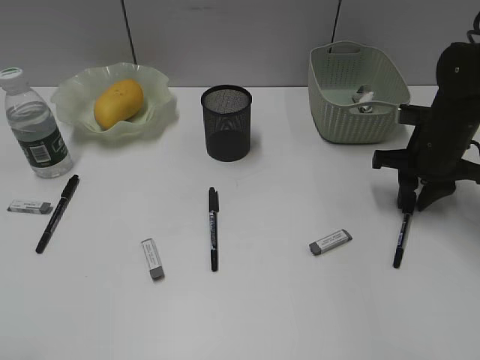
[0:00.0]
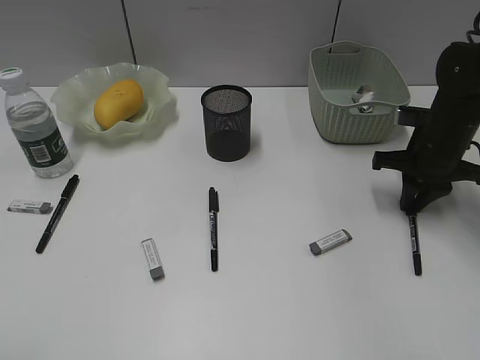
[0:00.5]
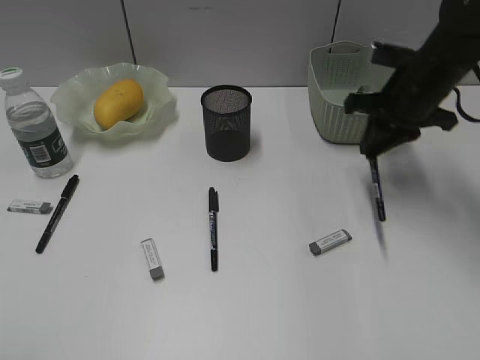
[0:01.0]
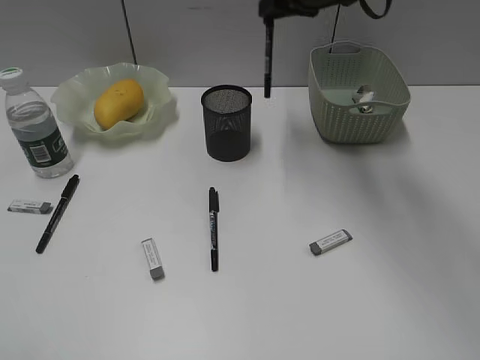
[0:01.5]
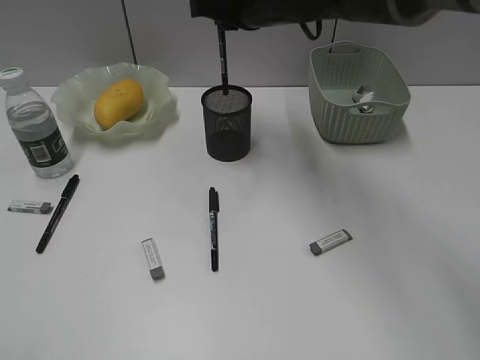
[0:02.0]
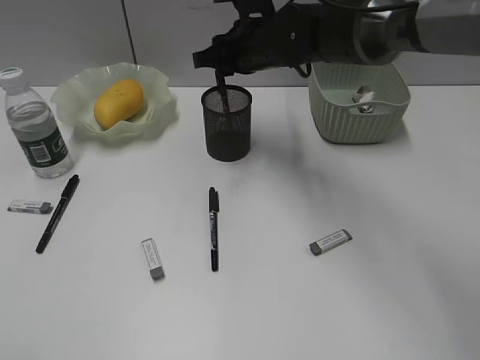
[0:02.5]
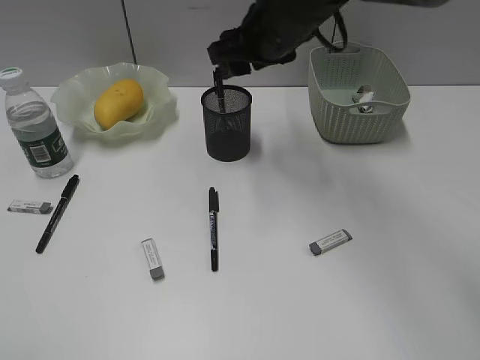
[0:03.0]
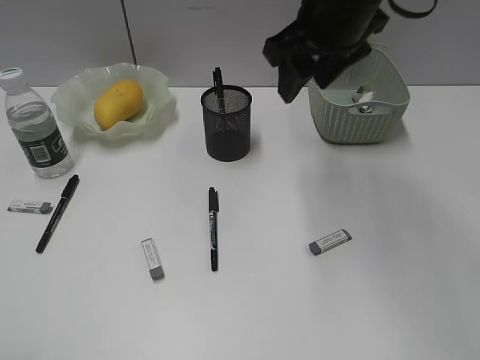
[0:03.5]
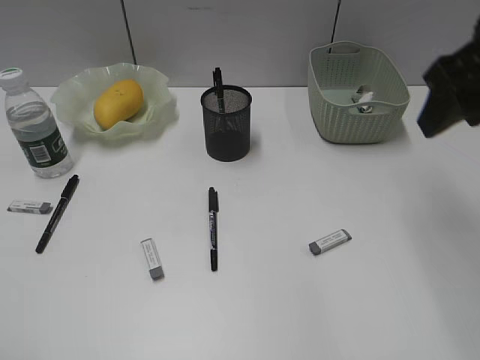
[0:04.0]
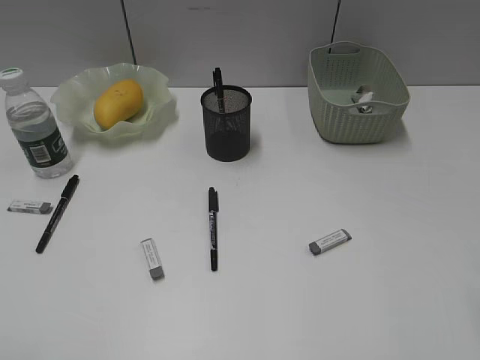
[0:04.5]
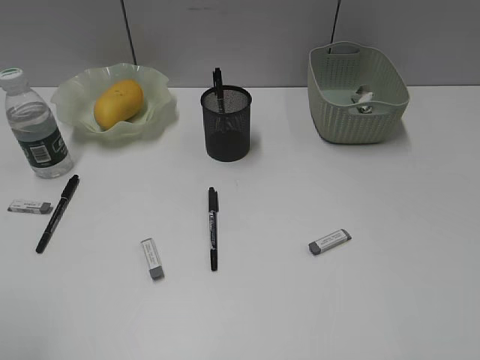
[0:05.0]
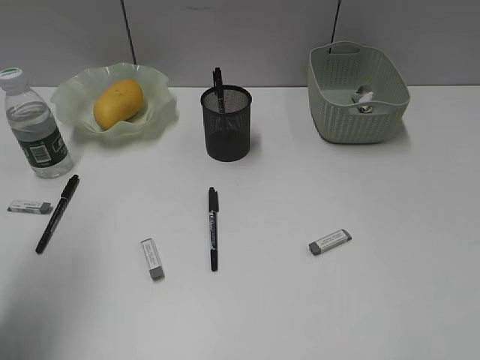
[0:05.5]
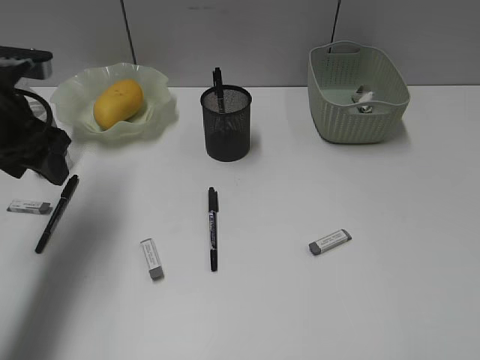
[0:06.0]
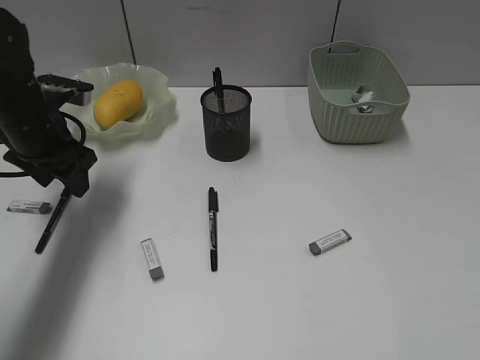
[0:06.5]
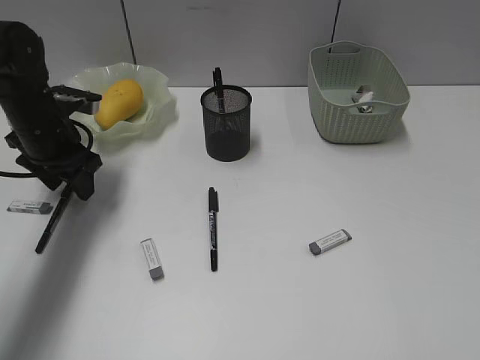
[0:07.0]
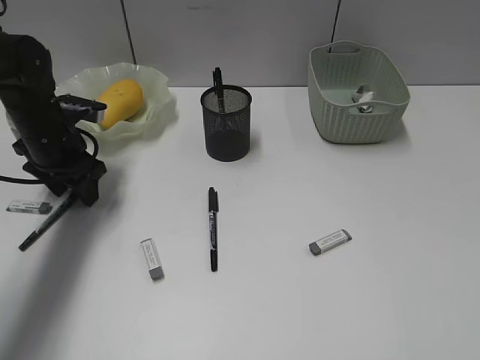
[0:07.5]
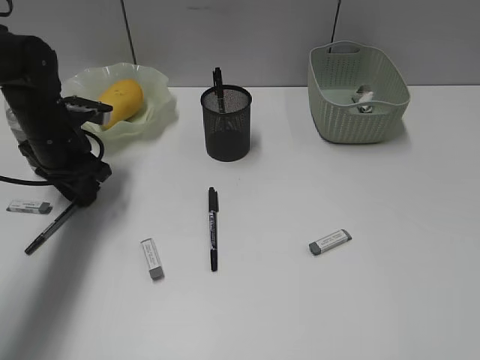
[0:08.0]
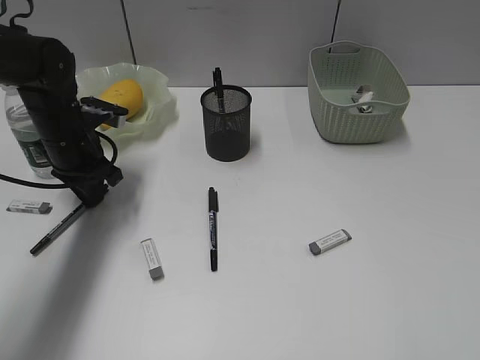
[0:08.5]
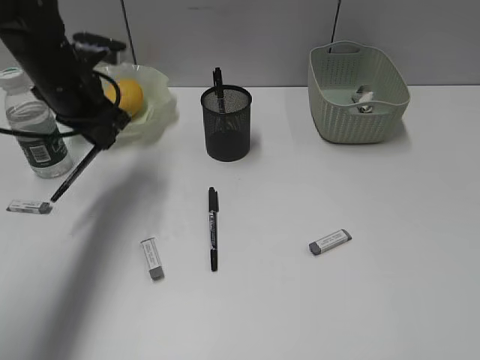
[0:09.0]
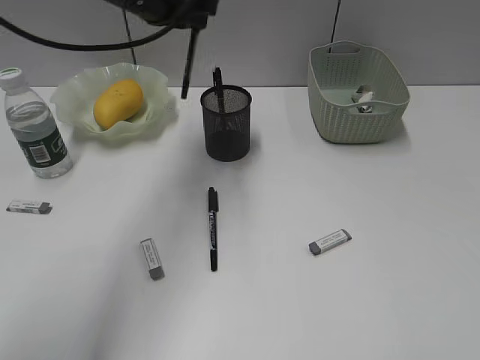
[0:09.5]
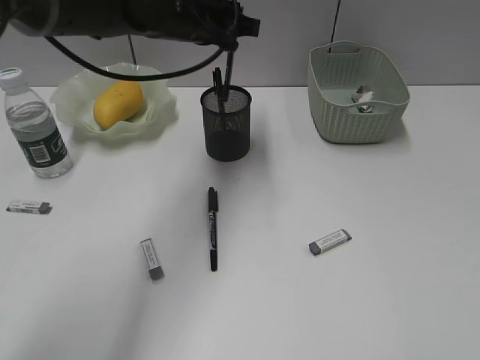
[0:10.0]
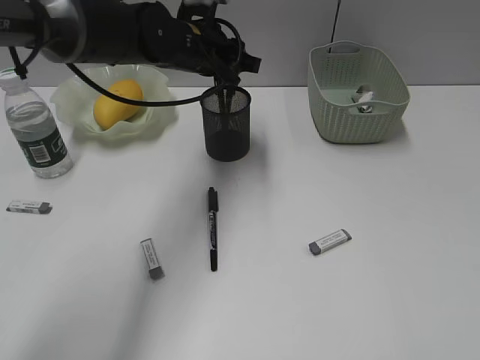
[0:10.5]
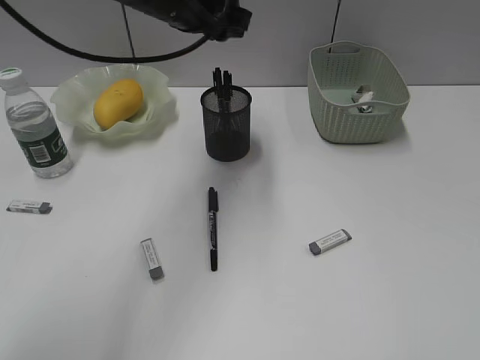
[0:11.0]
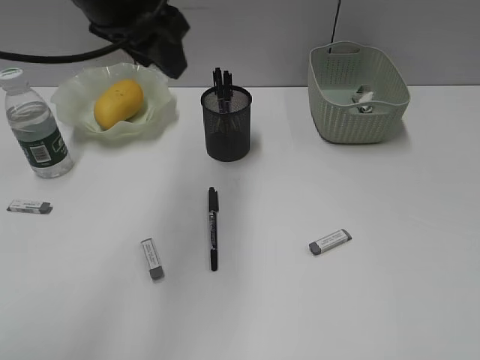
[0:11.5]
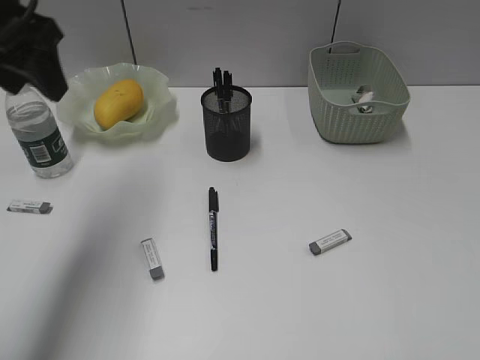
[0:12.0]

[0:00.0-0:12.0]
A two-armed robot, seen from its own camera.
Step, 1.0 to 3.0 s: Place the black pen in pen holder with right gripper.
Step, 3.5 to 8.5 s: Grasp the black pen with left gripper.
Step, 9.0 to 10.5 s: Place the black pen in pen holder with left gripper.
0.0 to 2.0 s: The right gripper heads to the left and upward, covering some 25 cm.
2.0 to 4.0 s: The right gripper heads to the right and backward, covering some 25 cm, and opens up.
4.0 to 6.0 s: The left gripper shifts about 30 cm forward, while the right gripper travels backward by approximately 25 cm.
6.0 to 8.0 s: The left gripper is displaced downward and forward by roughly 15 cm, and closes its fingers.
8.0 to 10.0 s: The left gripper is displaced to the right and upward by some 20 cm.
10.0 to 12.0 s: The left gripper heads to the left, backward and upward, covering some 25 cm, and opens up.

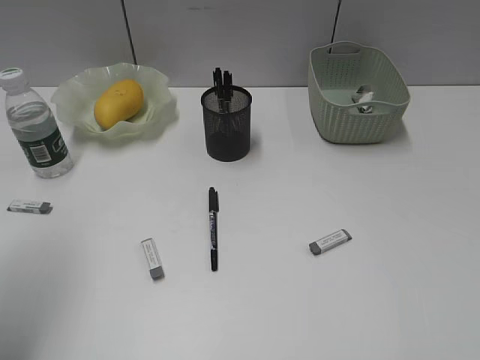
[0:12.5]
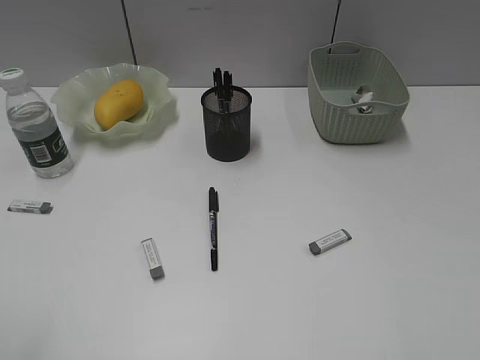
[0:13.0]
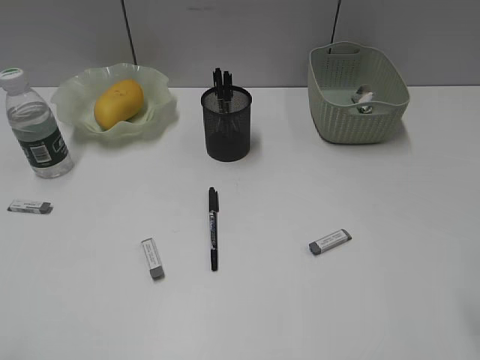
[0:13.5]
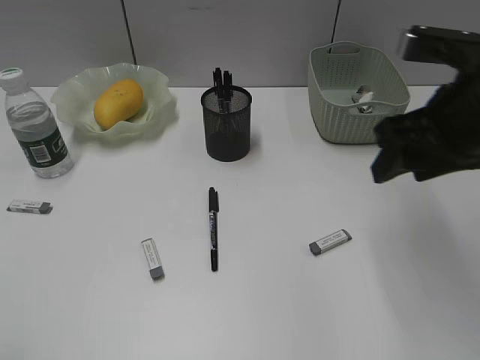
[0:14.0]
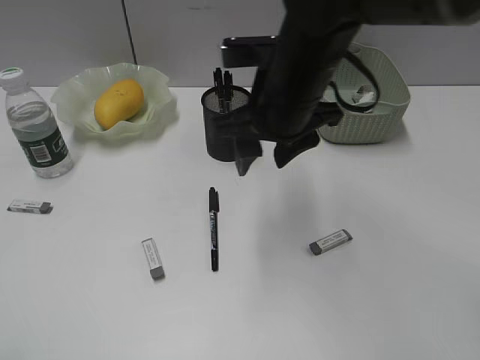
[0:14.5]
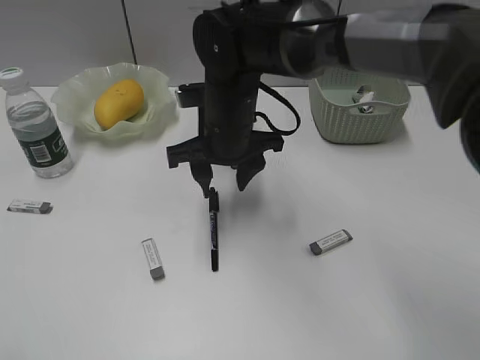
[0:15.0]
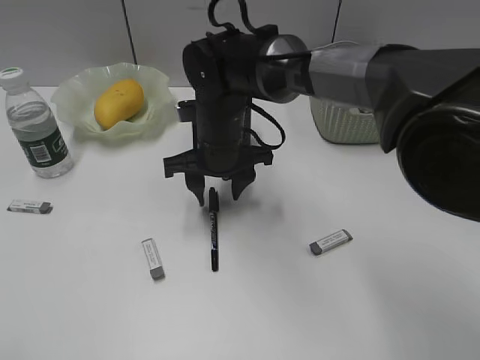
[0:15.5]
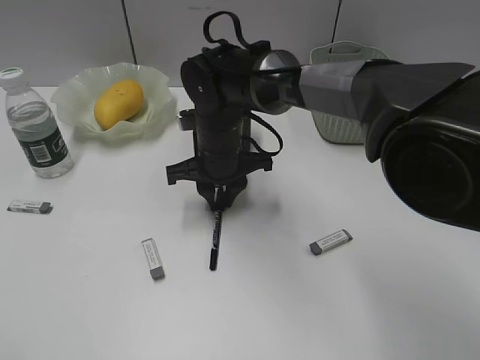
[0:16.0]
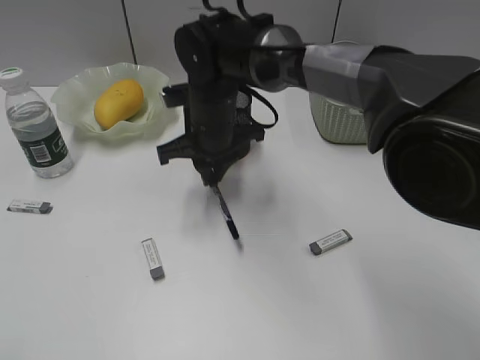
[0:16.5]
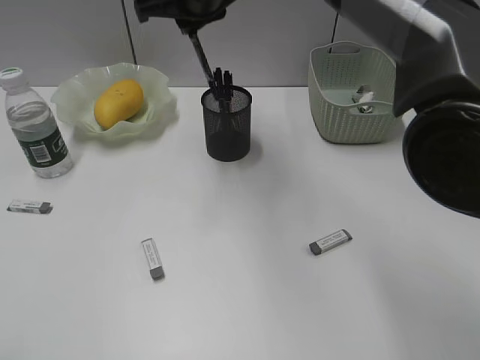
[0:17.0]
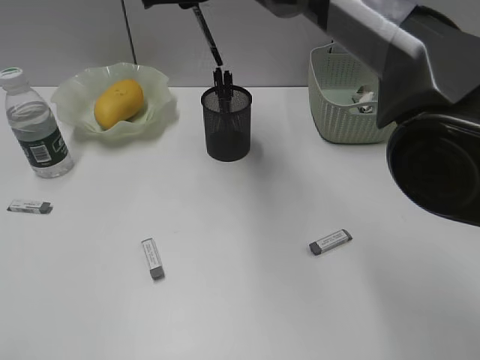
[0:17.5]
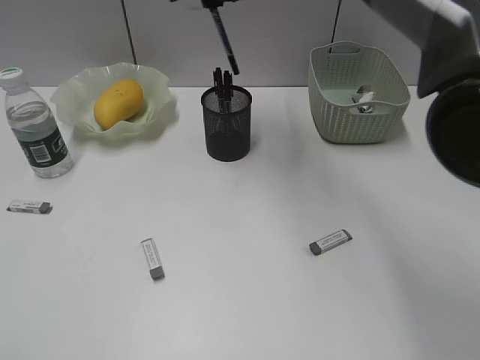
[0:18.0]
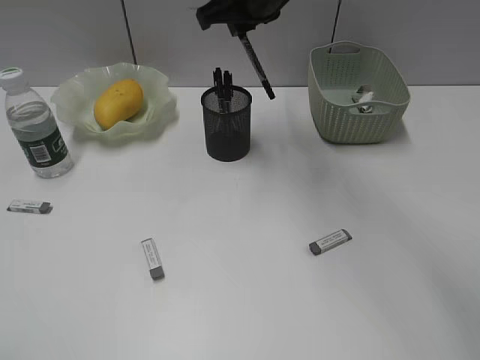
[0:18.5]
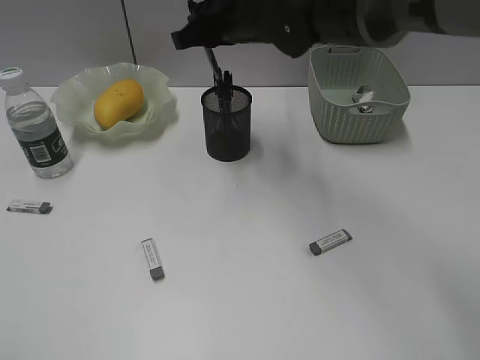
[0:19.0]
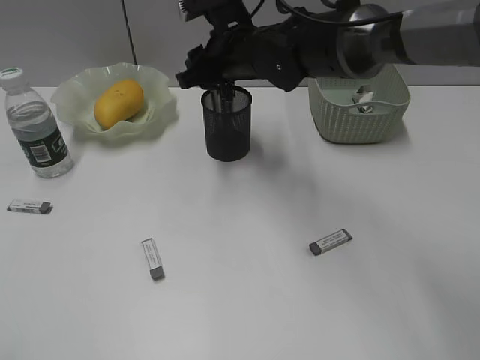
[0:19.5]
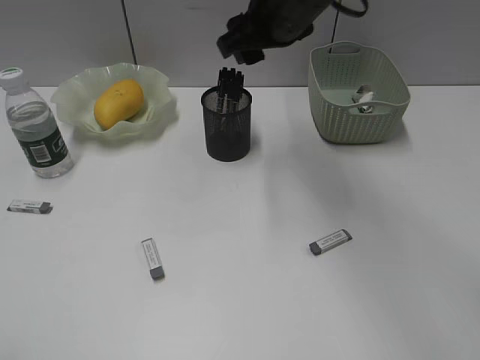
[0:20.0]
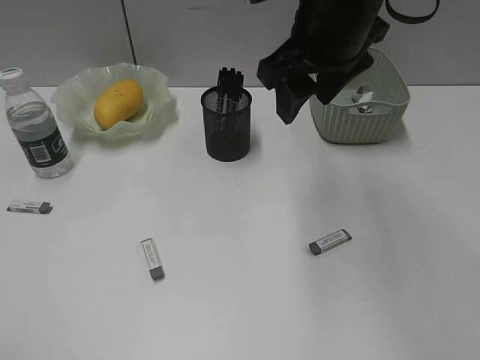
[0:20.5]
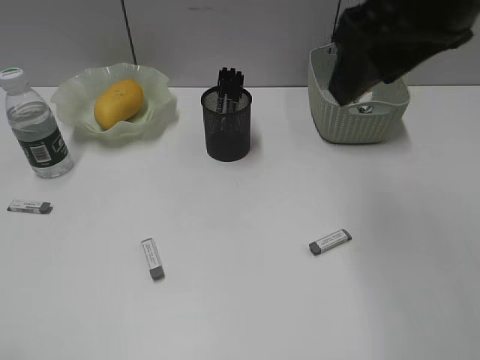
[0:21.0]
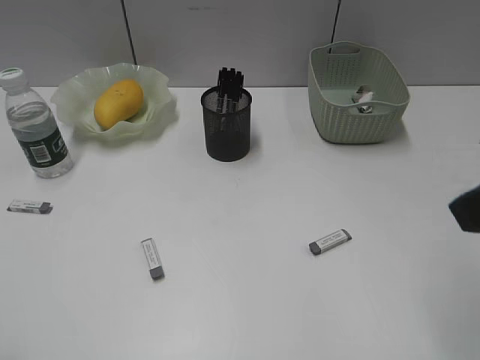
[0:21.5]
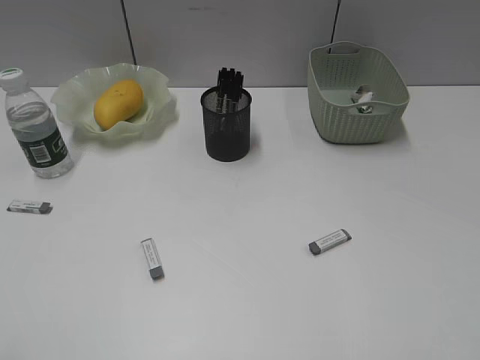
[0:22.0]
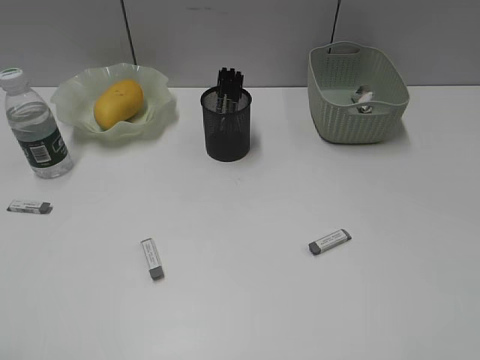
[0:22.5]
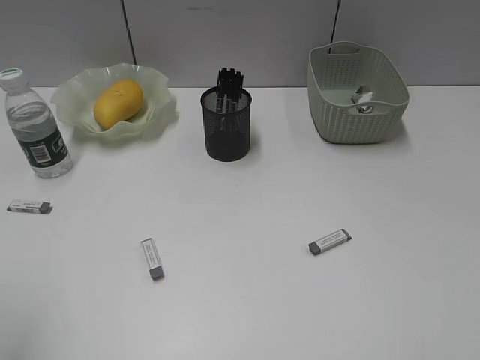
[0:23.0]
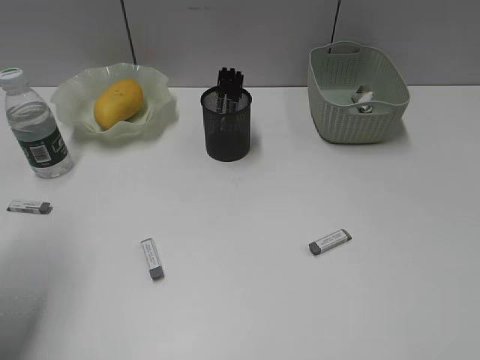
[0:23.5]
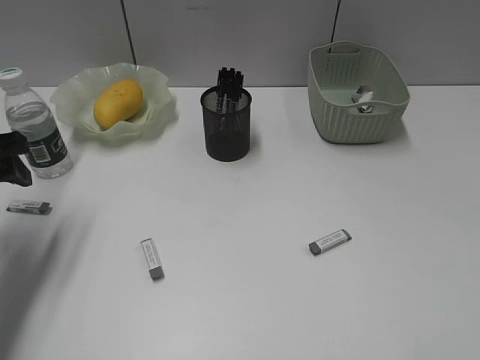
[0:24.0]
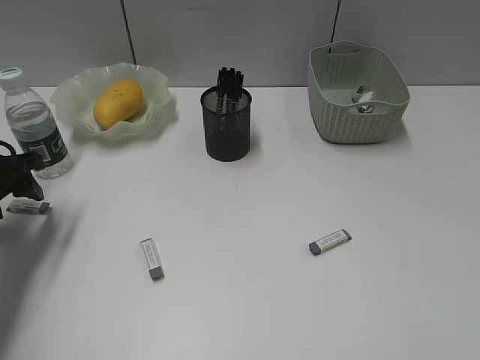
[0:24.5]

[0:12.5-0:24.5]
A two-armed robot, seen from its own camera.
Step, 12.5 to 16.0 s: Grasp the black pen with right gripper.
Step, 16.5 to 19.5 s: Place the black pen in pen holder with right gripper.
12.5 to 14.5 s: The right gripper shifts roughly 40 cm forward and to the left. Meanwhile the left gripper moves backward, about 15 cm.
14.5 to 16.5 s: The right gripper is displaced downward, to the left and forward by some 15 cm, and closes.
16.5 to 18.5 s: The right gripper travels upward and to the right by some 15 cm.
18.5 to 20.5 s: The right gripper travels backward and to the right by about 10 cm, moves roughly 10 cm downward and comes back, and opens its fingers.
20.5 to 22.5 s: The right gripper moves backward and to the right, about 35 cm.
22.5 to 24.5 s: The left gripper shifts about 35 cm forward and downward.

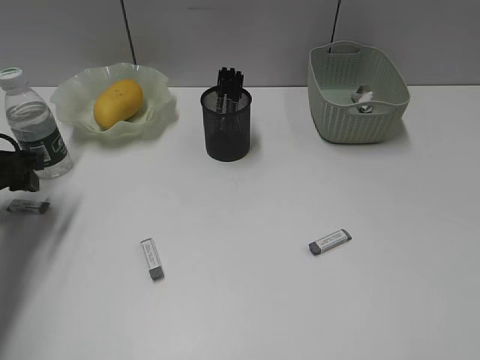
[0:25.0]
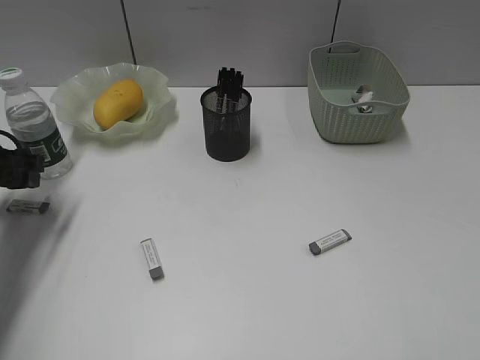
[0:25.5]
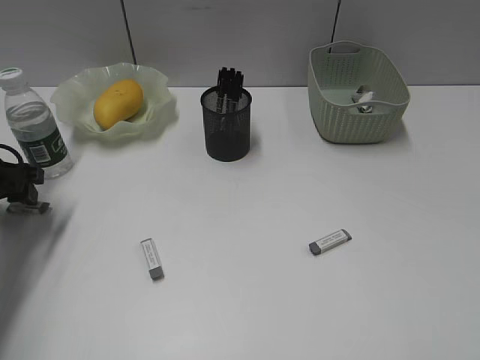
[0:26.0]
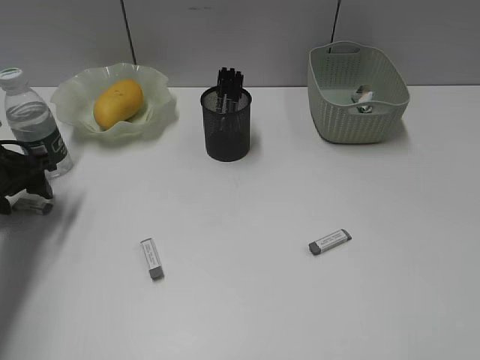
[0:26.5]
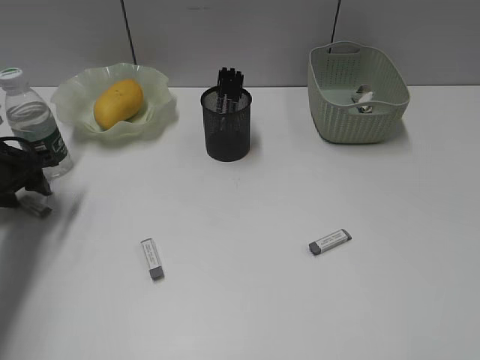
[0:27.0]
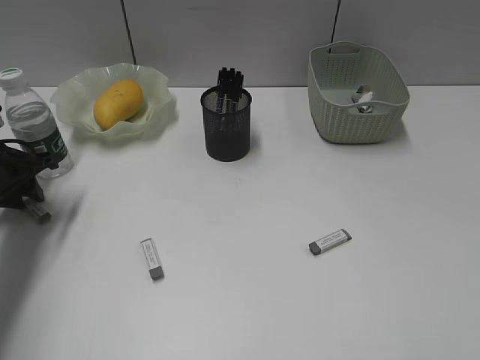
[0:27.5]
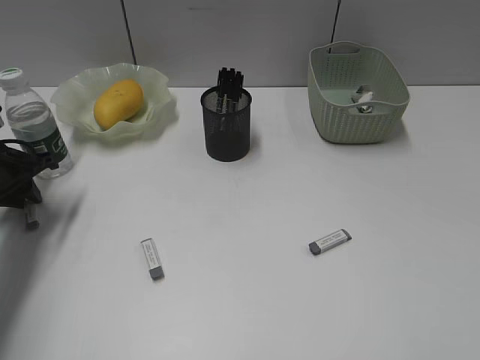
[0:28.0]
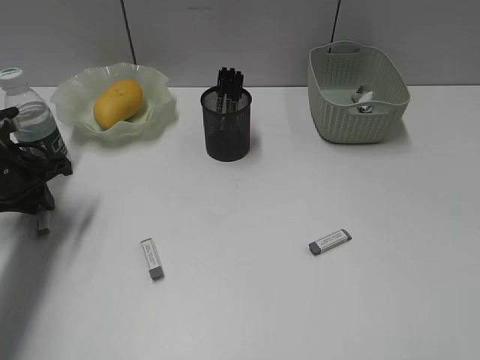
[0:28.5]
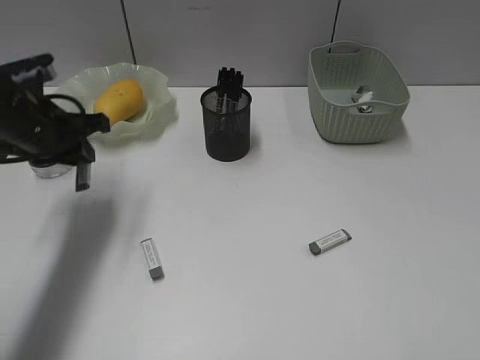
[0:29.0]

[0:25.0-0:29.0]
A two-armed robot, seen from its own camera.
Step, 25.0 to 28.0 s: Grasp the eraser with left gripper.
25.0 to 27.0 s: There are only small adjustments of the grippers.
27.0 to 29.0 s: The left gripper goes about 10 cm to the right and upward, and closes.
